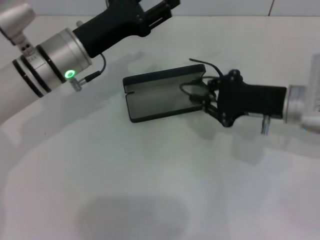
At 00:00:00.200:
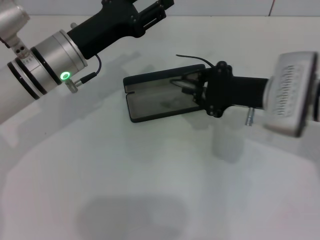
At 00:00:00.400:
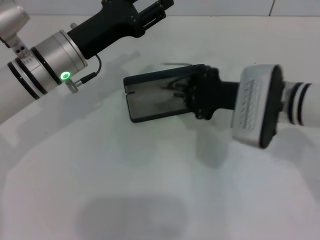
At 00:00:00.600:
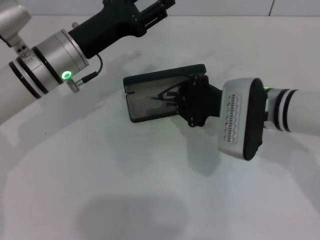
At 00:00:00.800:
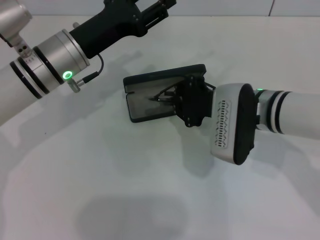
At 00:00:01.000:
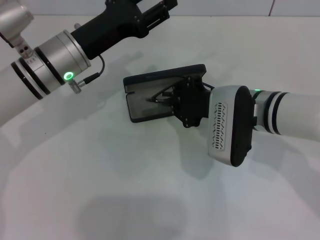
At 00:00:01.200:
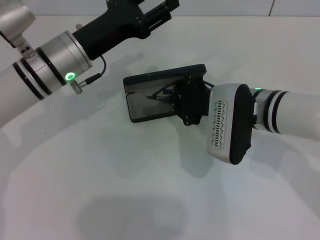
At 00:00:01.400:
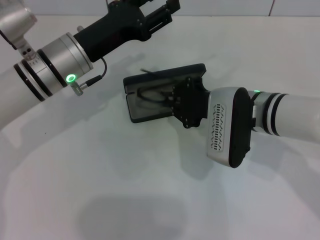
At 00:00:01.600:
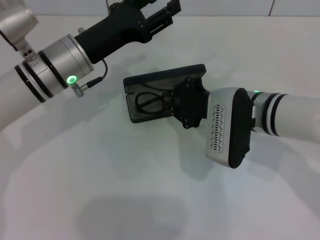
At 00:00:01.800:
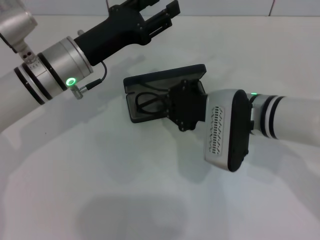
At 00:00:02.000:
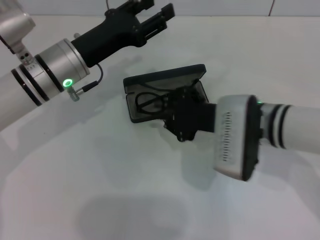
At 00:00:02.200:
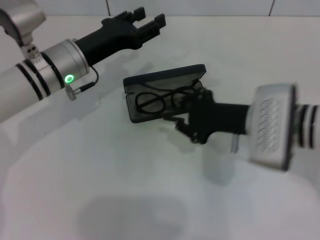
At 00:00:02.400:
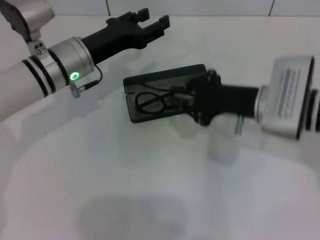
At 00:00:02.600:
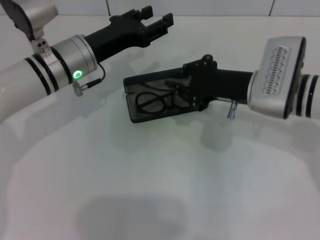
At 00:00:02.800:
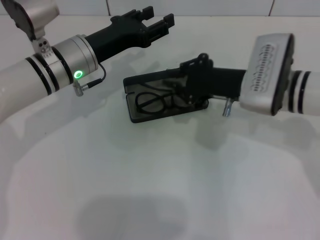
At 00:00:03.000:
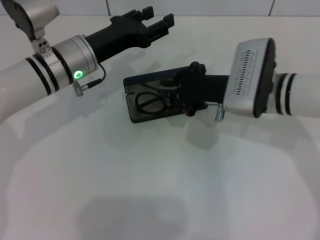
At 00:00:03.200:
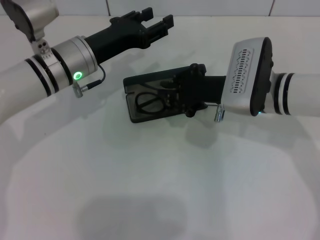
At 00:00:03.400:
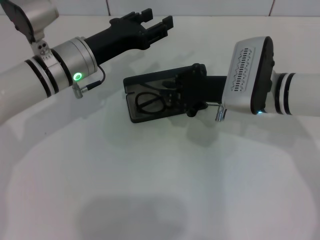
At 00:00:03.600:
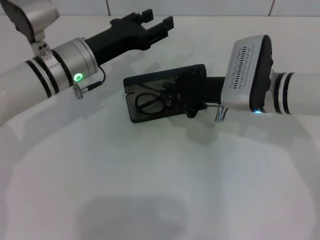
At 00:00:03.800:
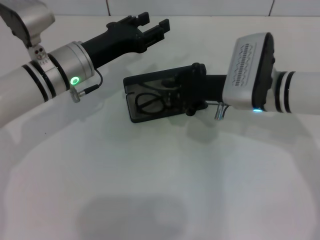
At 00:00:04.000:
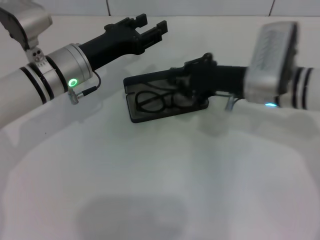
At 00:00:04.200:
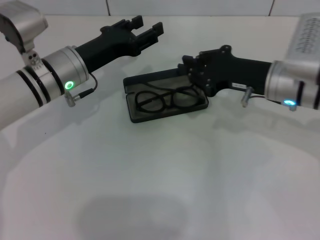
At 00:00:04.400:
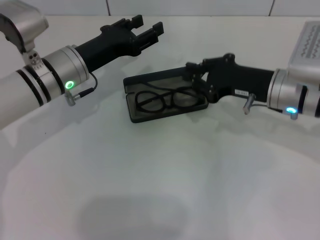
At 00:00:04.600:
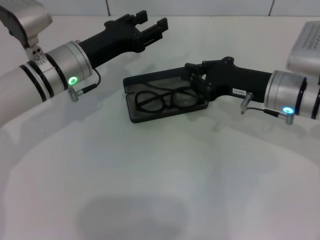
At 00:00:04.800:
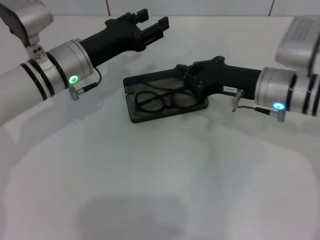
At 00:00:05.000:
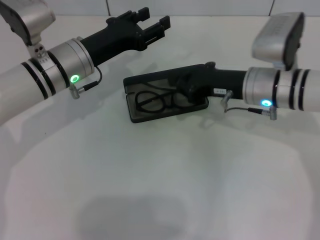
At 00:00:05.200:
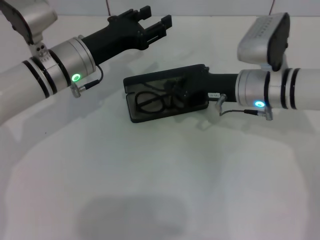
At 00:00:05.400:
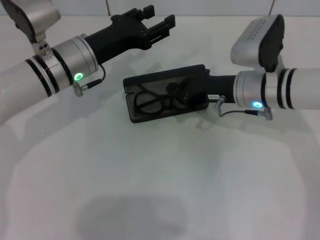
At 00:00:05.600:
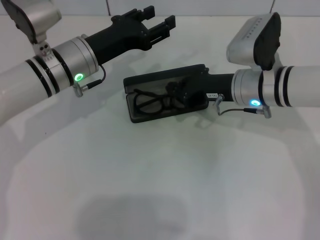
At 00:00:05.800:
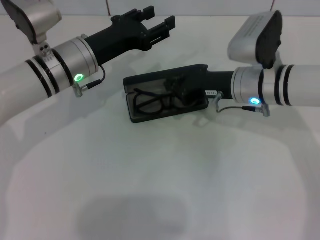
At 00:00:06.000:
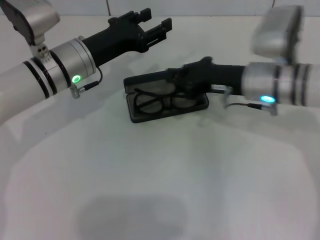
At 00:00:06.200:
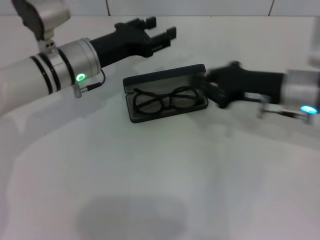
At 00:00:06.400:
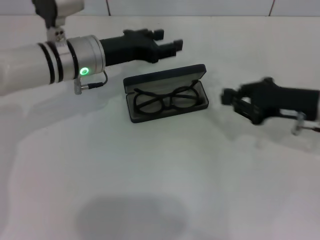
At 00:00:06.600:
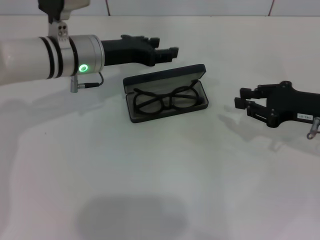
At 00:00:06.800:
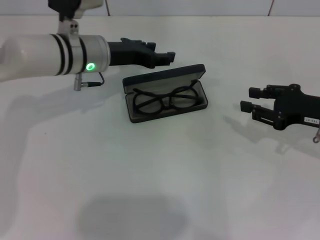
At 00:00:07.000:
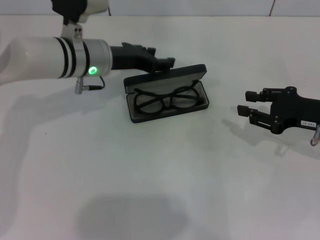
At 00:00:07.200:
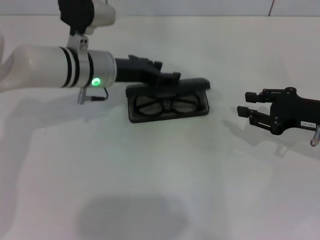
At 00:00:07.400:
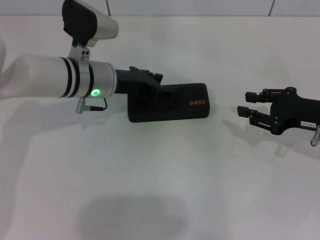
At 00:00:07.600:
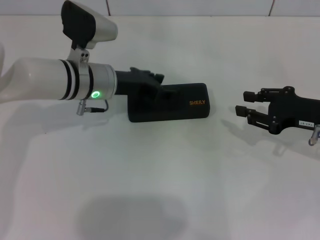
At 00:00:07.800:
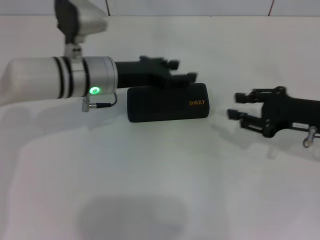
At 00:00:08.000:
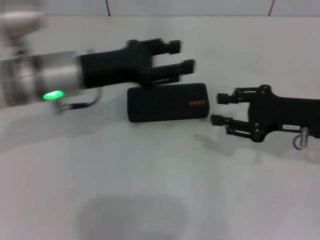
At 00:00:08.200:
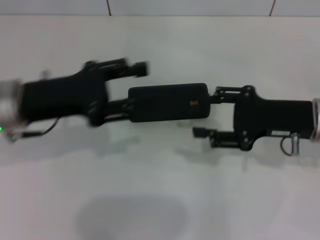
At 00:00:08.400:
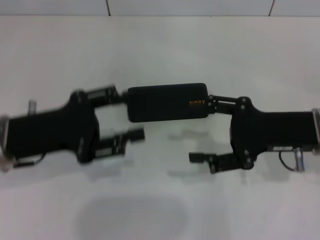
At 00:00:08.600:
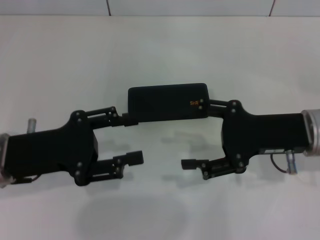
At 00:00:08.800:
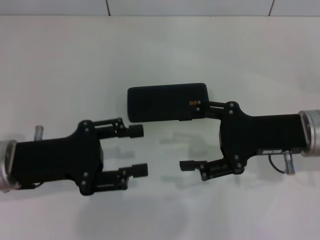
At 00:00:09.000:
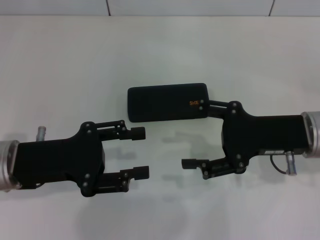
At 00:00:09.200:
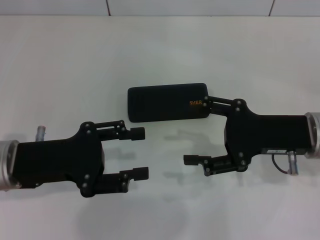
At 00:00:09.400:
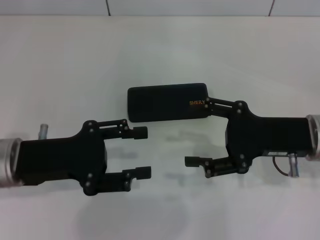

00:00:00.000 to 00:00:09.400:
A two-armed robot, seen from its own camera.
Step, 00:00:00.000 to 00:00:05.600: Put the glasses into the case with your right hand.
Step, 00:00:05.800 to 00:00:07.200: Close the glasses case with your left hand.
00:00:00.000 to 00:00:01.600: The right gripper shifts approximately 10 cm to the left.
00:00:04.800 to 00:00:06.200: The grippers stay close to where they were, moving slightly.
00:00:06.200 to 00:00:07.800: The right gripper travels to the right by some 5 cm, and opens up.
00:00:07.800 to 00:00:09.400: The left gripper heads backward and to the left, covering about 15 cm; the right gripper is displaced to the left by some 5 cm, and opens its fingers.
